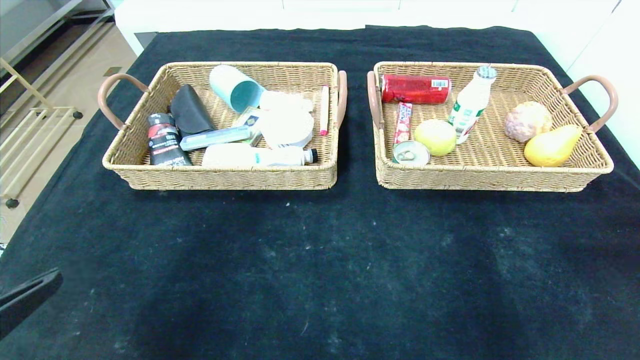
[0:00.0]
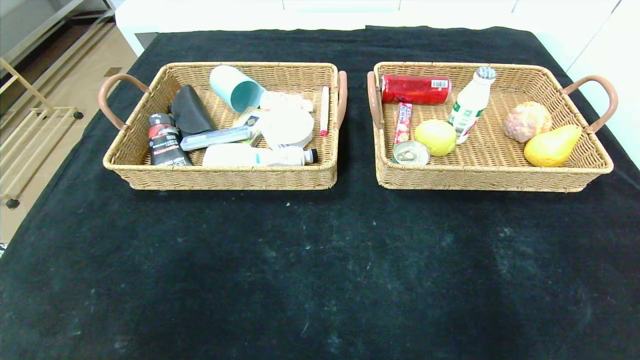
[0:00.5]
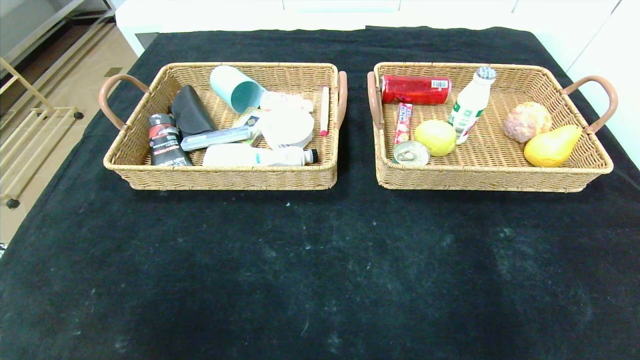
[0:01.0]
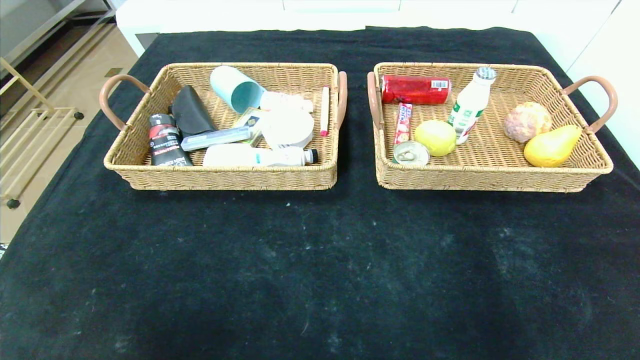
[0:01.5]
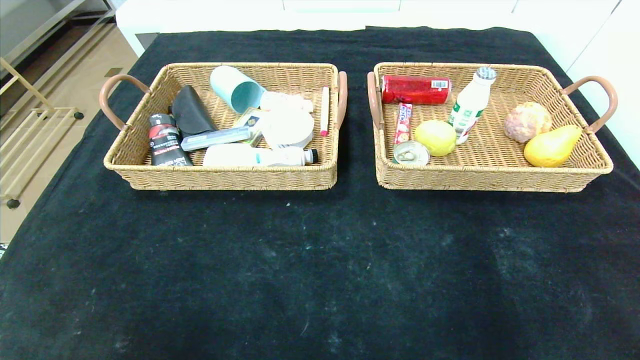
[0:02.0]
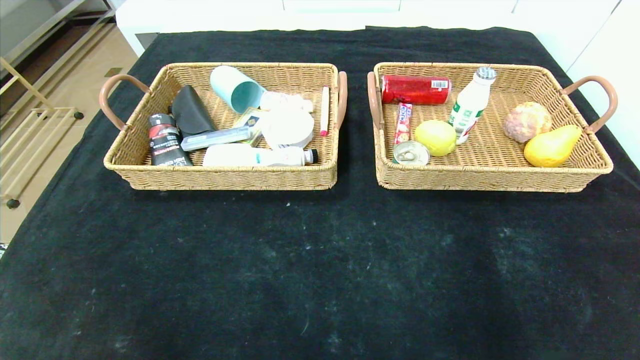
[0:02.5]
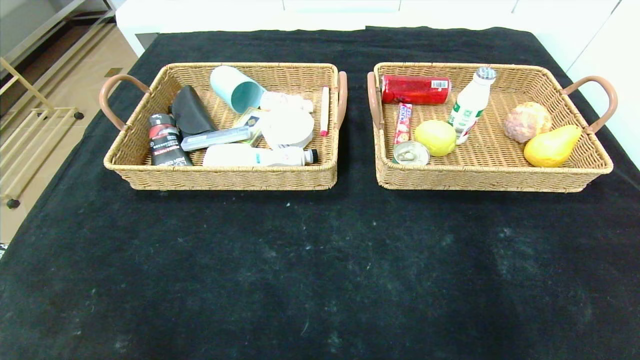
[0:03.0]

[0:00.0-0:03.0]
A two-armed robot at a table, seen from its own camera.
0:00.0 to 0:01.5: Both grippers move backward and downward, some 15 cm.
